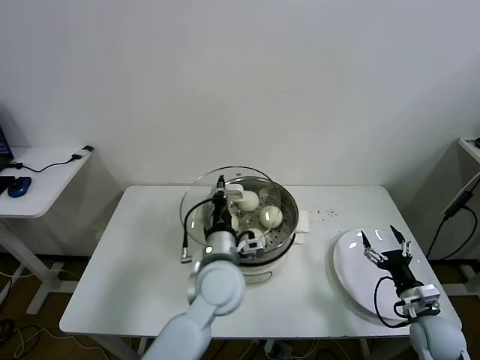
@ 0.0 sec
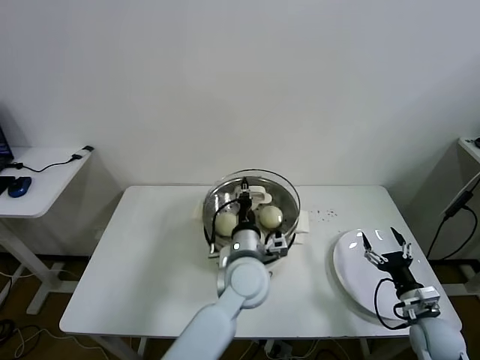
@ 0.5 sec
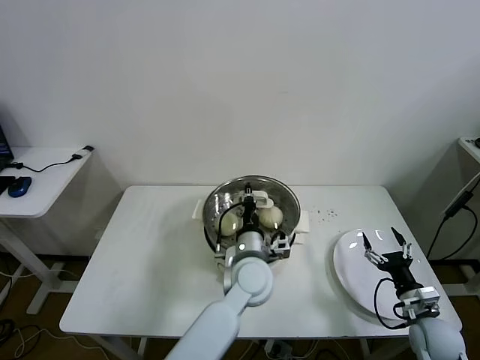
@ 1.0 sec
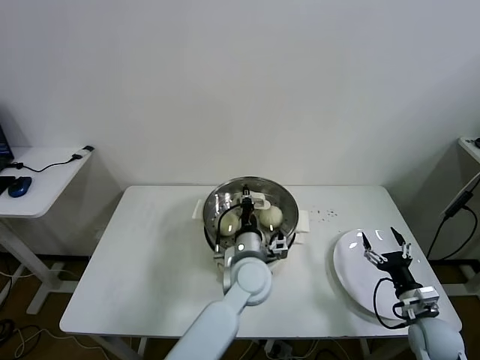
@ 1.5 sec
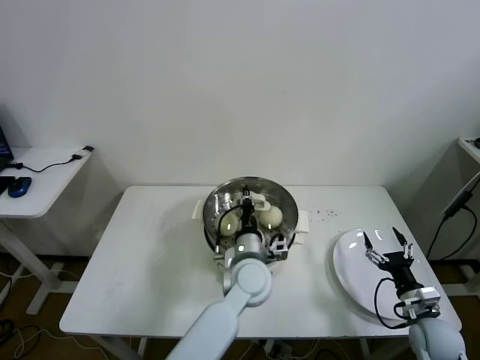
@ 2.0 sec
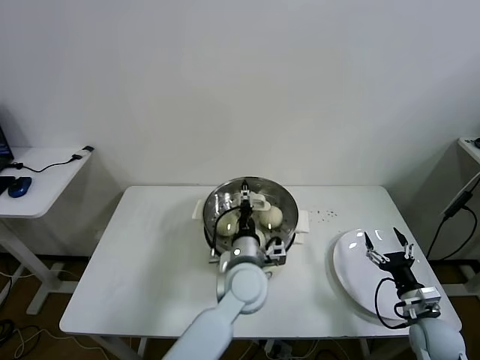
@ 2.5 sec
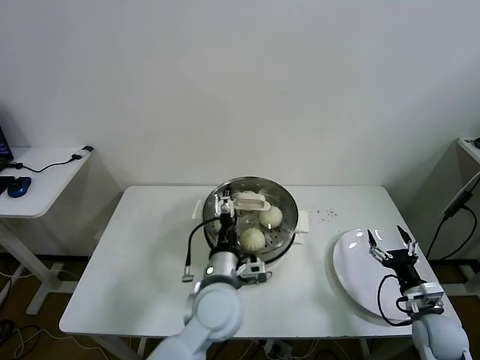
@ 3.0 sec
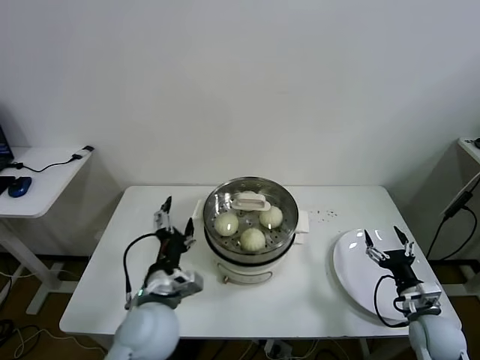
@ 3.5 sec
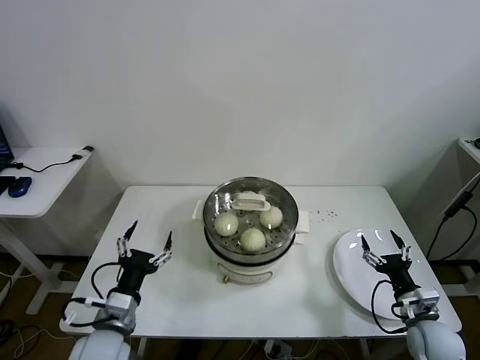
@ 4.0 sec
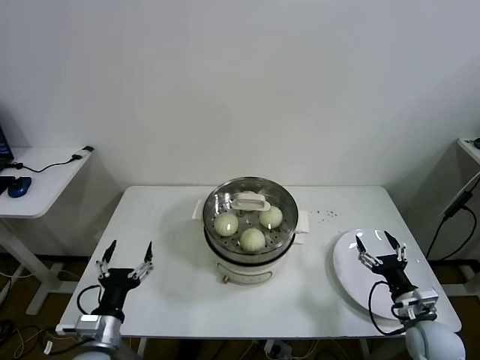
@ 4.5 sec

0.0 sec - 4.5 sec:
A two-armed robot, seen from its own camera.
Task of the whole recording: take steamed baozi put them in steamer.
Step, 0.0 sec - 2.5 sec: Place the pot lid on the steamer with left gripper.
0.0 sec - 2.0 sec: The left gripper moves to the right and downward, some 10 cm.
2.0 sec - 4.5 sec: The left gripper shifts roughly 35 cm to the left and backward, and opens up.

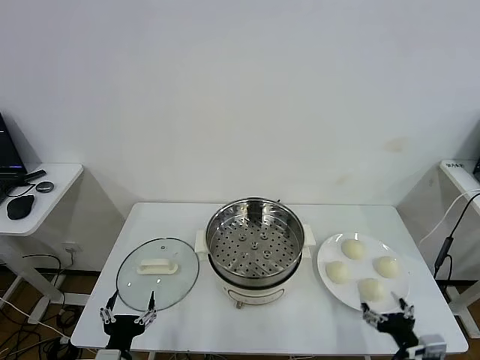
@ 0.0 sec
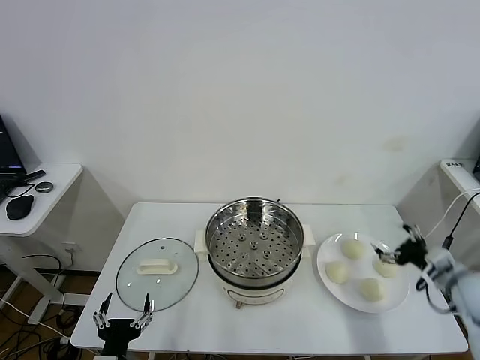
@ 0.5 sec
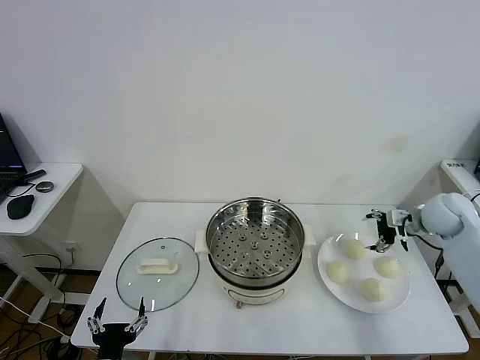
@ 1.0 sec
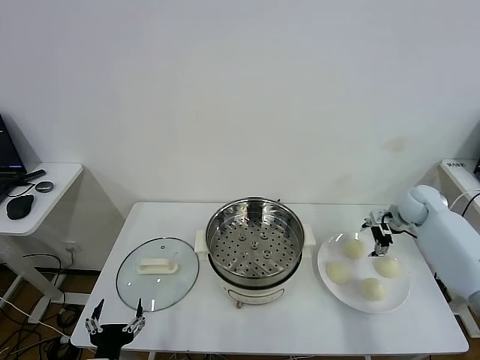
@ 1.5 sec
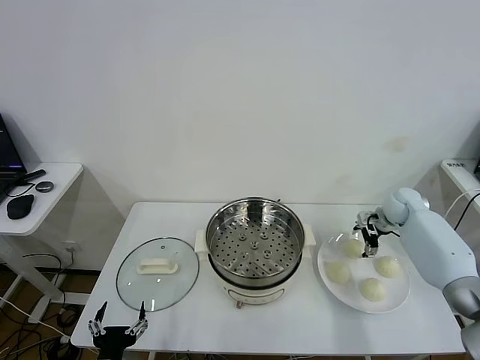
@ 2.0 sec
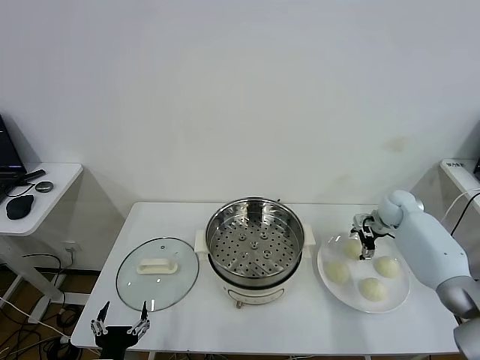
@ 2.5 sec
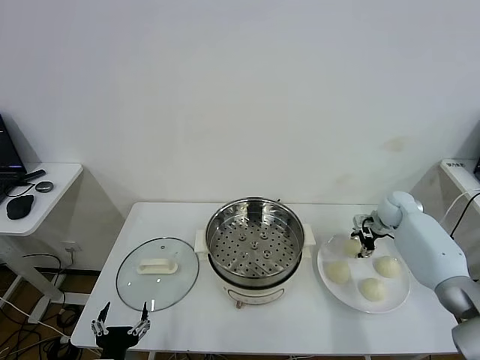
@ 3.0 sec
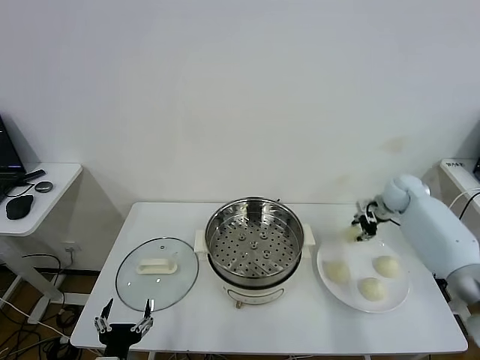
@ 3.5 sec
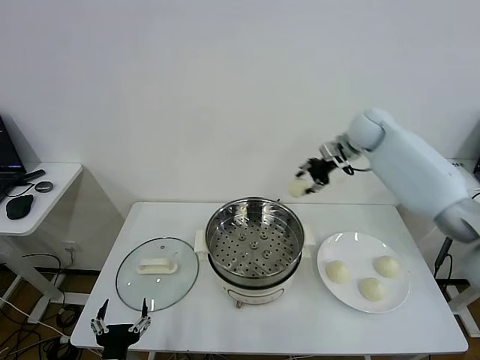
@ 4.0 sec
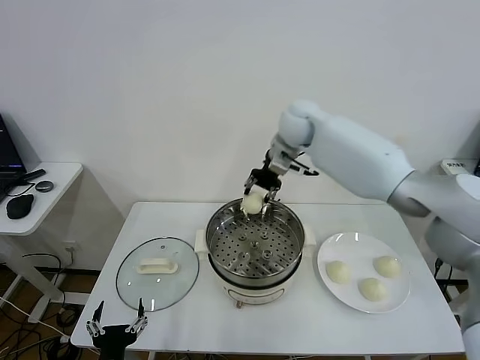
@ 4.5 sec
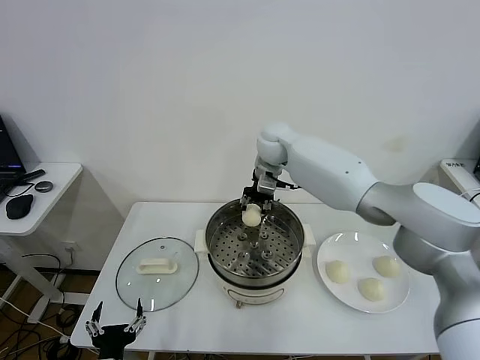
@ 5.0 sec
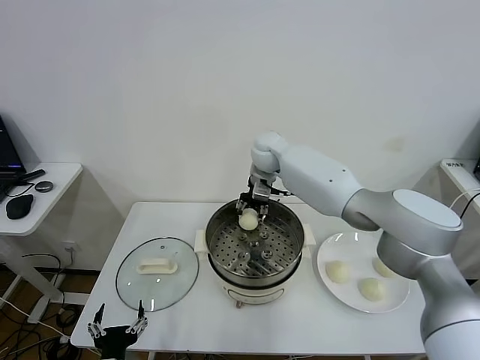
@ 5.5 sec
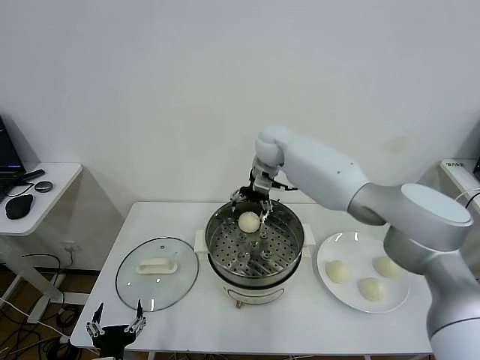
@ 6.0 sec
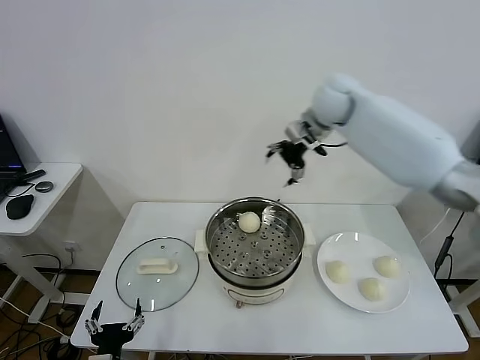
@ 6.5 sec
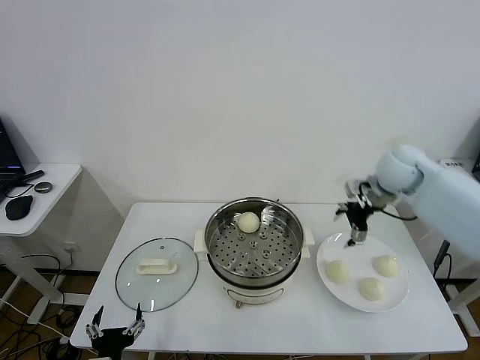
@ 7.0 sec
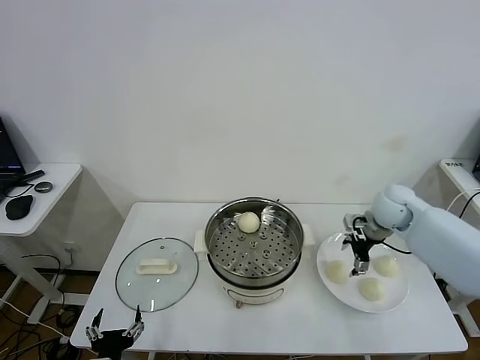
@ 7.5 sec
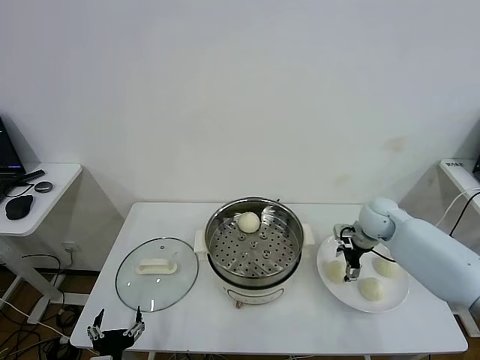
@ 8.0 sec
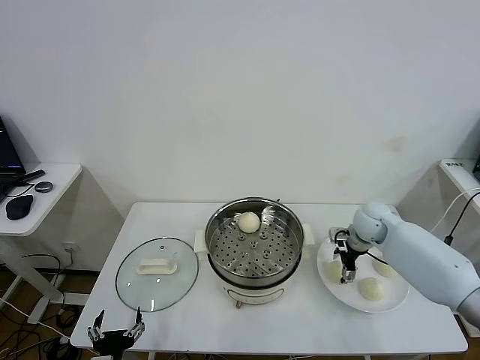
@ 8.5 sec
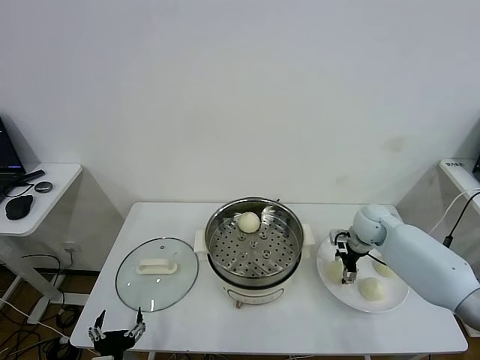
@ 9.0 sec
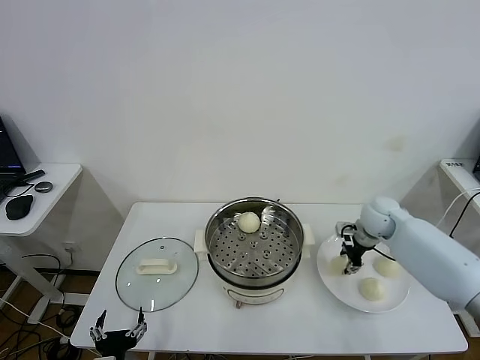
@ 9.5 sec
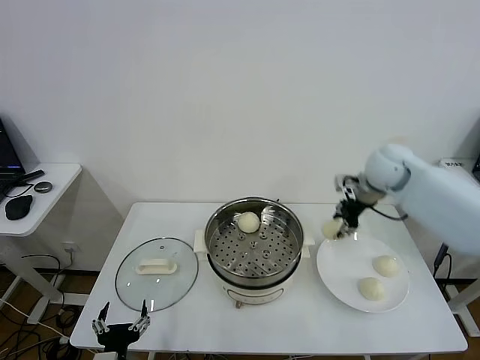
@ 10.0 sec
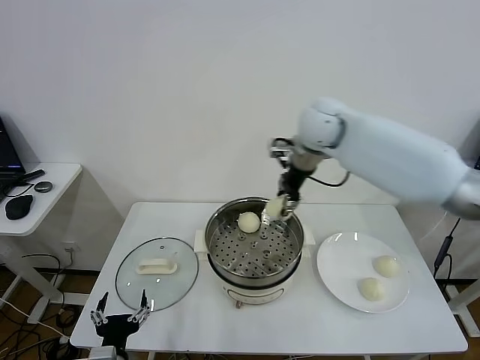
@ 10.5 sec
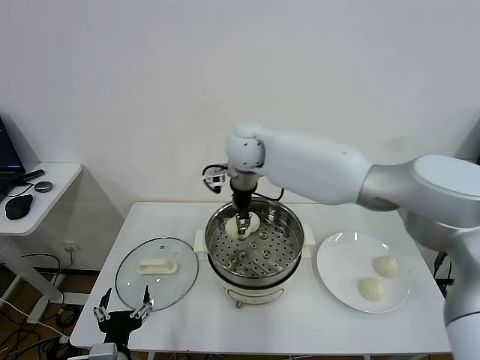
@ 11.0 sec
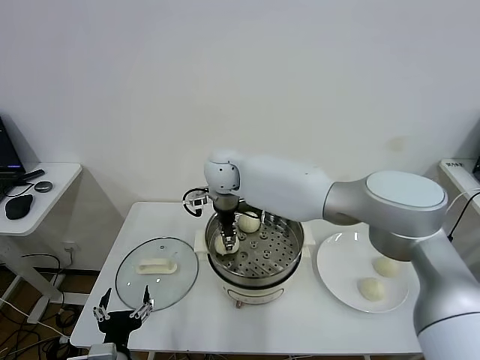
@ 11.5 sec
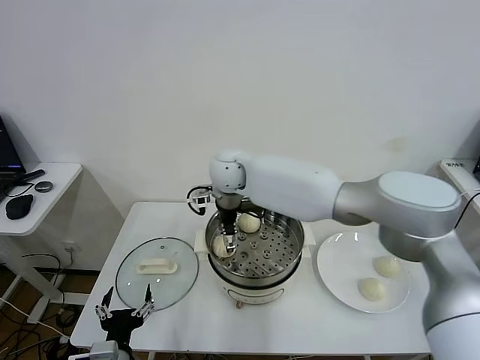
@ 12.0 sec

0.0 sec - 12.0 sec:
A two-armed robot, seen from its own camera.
Task of the whole recording: take steamed baozi put them in steamer.
Step, 0.0 sec - 2.5 sec: Grasp the baozi in the plate with right gripper.
Step, 3.0 sec - 5.5 sec: Place the baozi on the steamer with right gripper.
Step, 6.5 sec - 9.0 sec: Grasp the baozi in the plate with right gripper.
2.0 sec - 4.0 sec: The right gripper shifts roughly 30 cm upward and to the left, and closes up.
4.0 sec - 6.0 sec: The right gripper heads to the left, covering some 15 cm, and opens up.
6.0 sec - 8.0 sec: The right gripper heads to the right, downward and backward, covering roughly 35 cm.
8.0 sec - 10.0 sec: The right gripper moves upward, roughly 20 cm, and closes.
10.0 sec - 12.0 sec: The right gripper travels to the left by some 30 cm, and opens up.

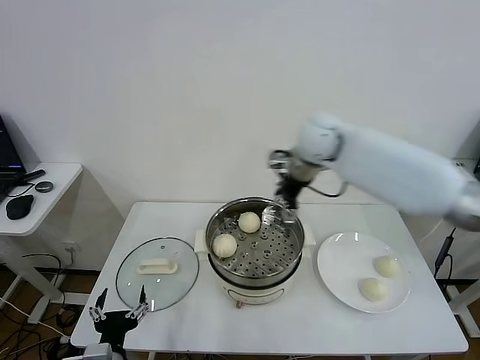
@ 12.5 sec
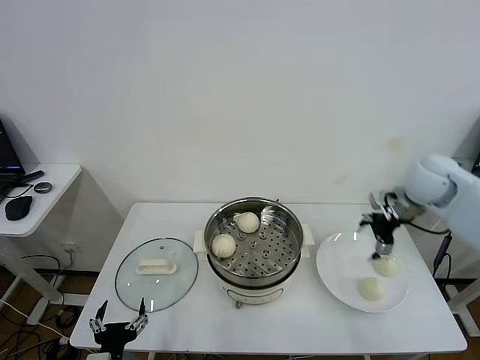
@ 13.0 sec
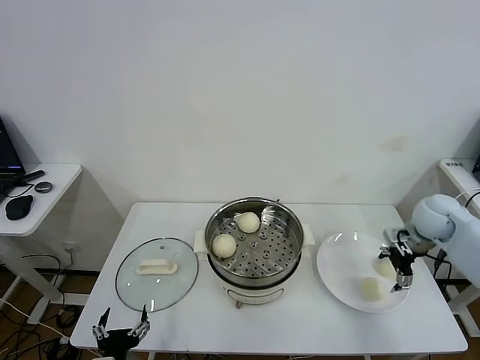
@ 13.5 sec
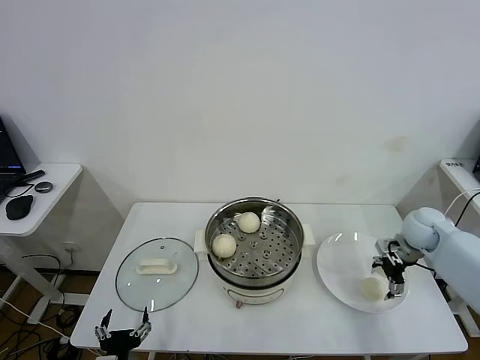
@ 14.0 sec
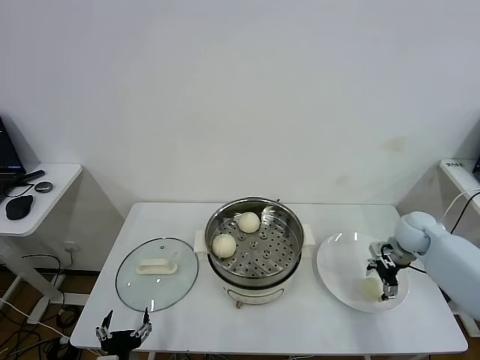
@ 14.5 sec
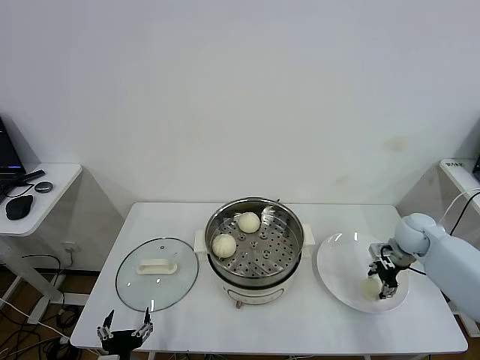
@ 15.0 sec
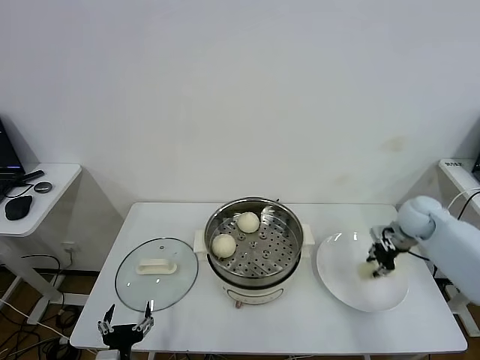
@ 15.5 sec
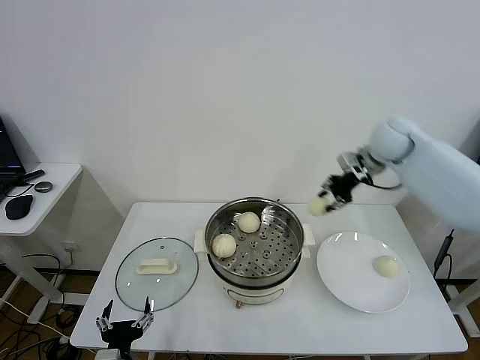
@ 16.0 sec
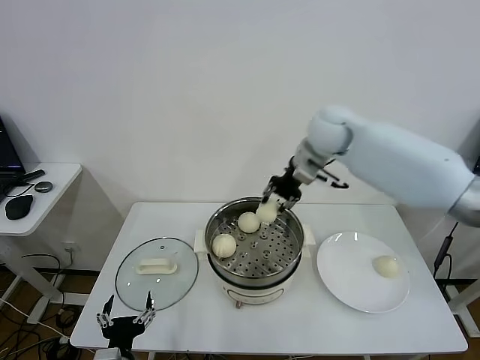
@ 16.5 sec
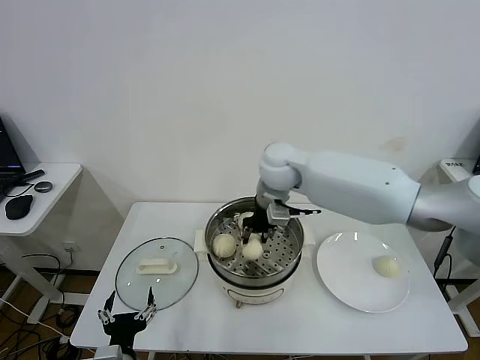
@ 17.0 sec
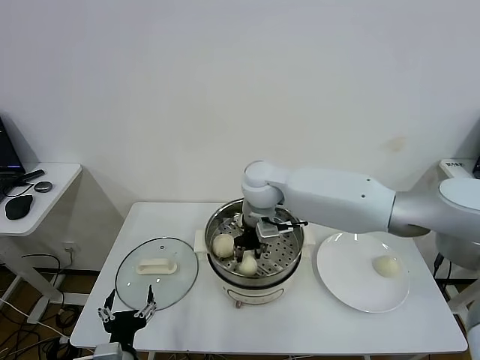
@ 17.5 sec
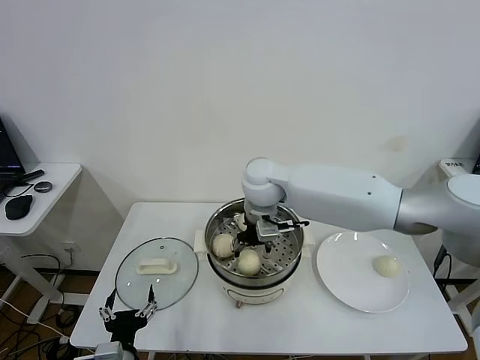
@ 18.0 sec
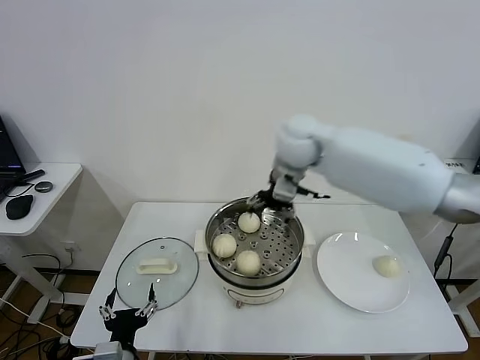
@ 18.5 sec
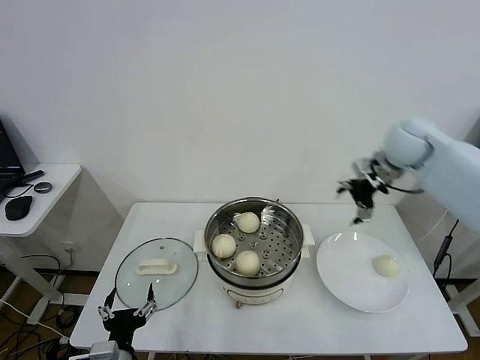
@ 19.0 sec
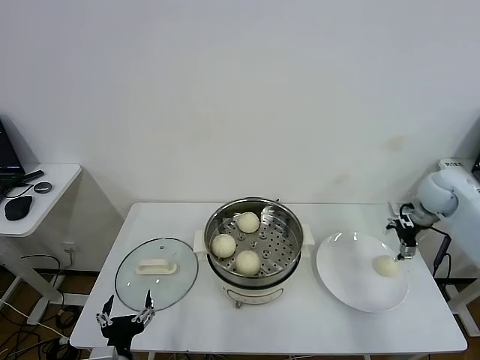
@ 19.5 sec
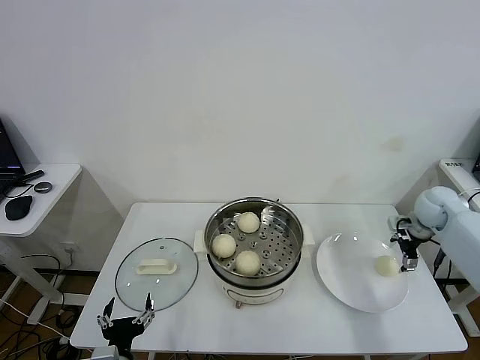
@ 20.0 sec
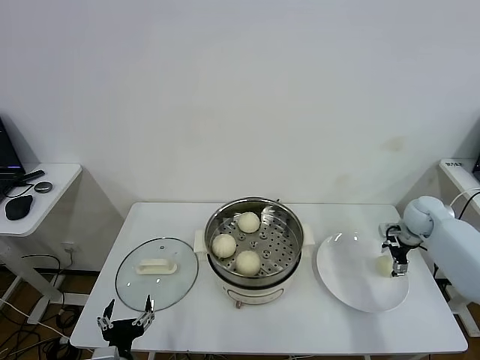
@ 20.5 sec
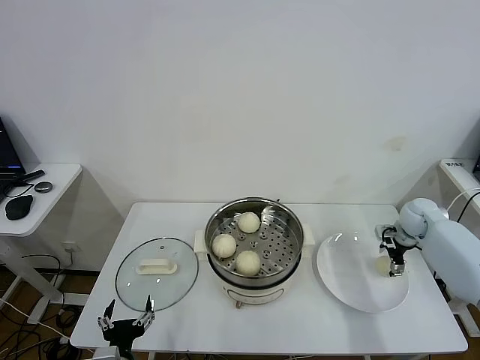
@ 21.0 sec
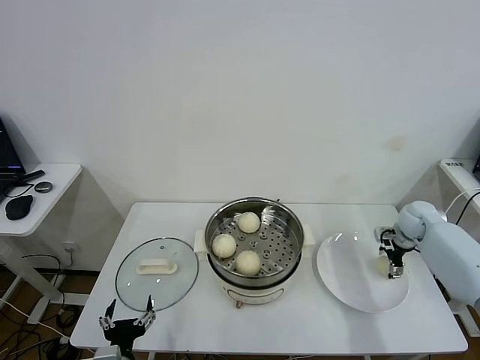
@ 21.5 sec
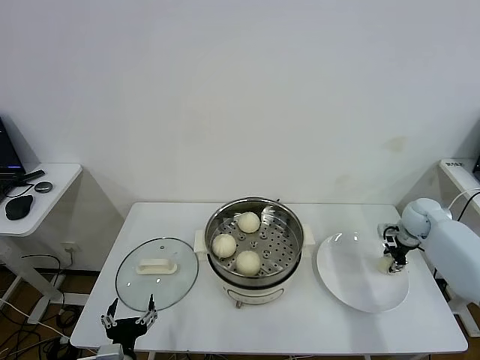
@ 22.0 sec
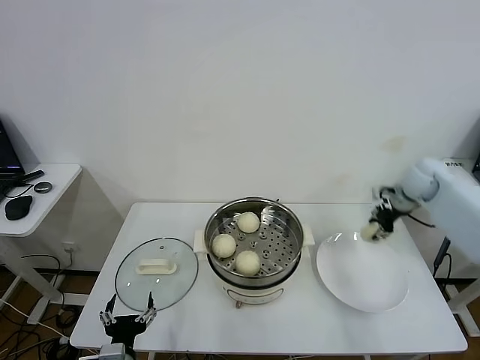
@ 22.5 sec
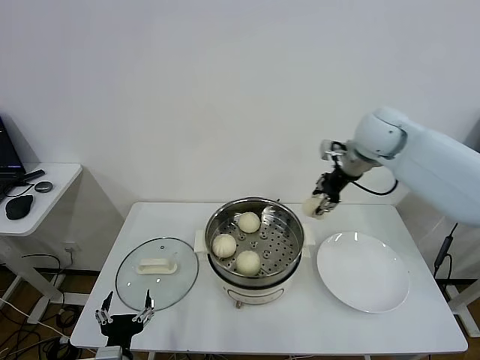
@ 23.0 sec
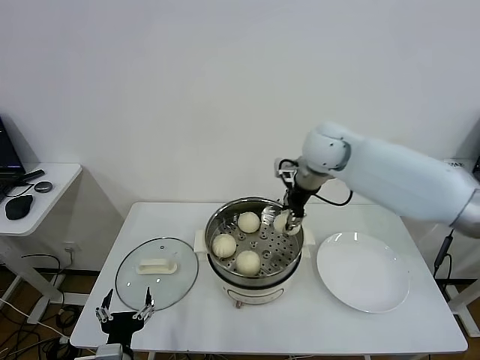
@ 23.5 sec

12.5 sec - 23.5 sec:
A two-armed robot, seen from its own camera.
Task of the whole recording: take steamed baozi put them in steamer.
Step, 12.5 sec - 14.5 sec: Grasp the baozi in the plate with right gripper.
Step, 15.5 sec - 18.0 sec: Place the baozi on the steamer with right gripper.
Step, 18.5 sec - 21.5 sec: Grasp the baozi in the plate with right gripper.
12.5 sec - 14.5 sec: The right gripper travels downward and to the right by roughly 30 cm.
14.5 sec - 16.0 sec: The right gripper heads upward, to the left and forward, covering approximately 25 cm, and closes up.
16.0 sec - 18.0 sec: The right gripper heads to the left, covering approximately 25 cm, and opens.
18.0 sec - 20.0 sec: The right gripper is displaced to the right by about 40 cm.
20.0 sec - 21.5 sec: The right gripper goes roughly 5 cm downward.
21.5 sec - 23.5 sec: The right gripper goes about 35 cm to the left and upward, and closes its fingers.
